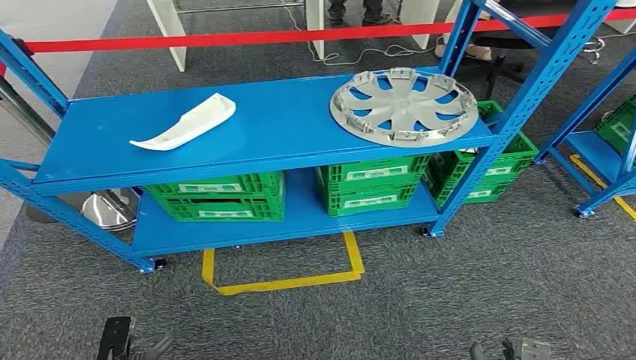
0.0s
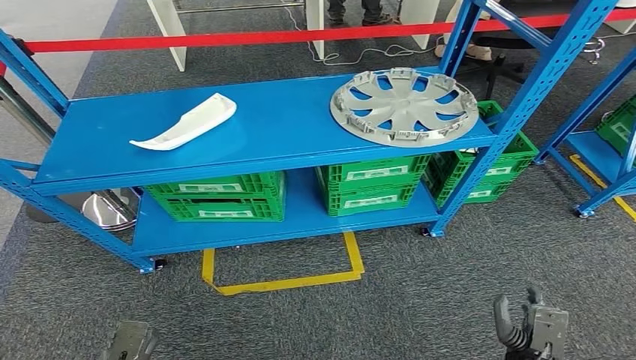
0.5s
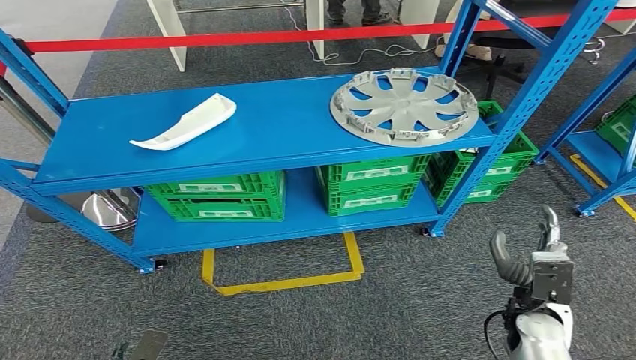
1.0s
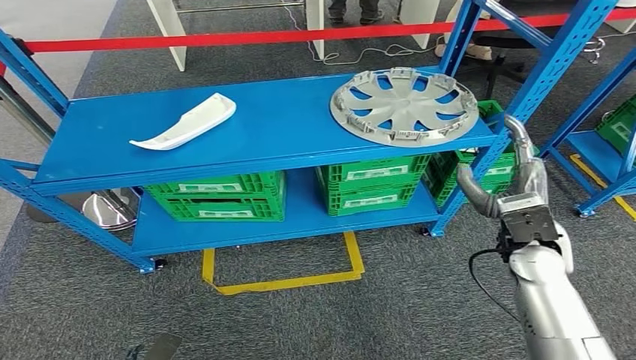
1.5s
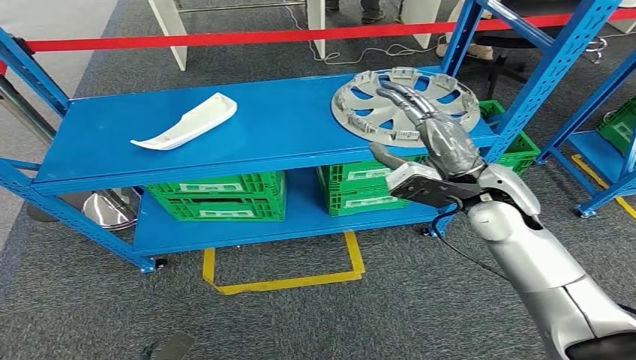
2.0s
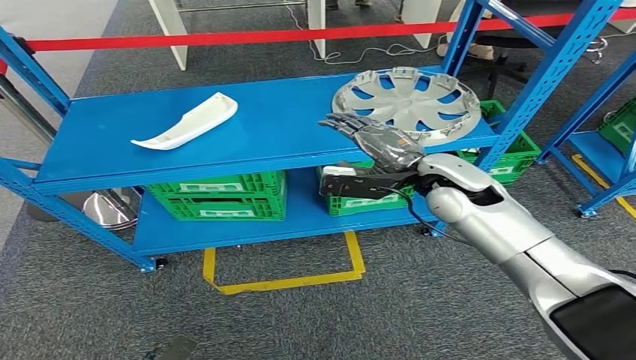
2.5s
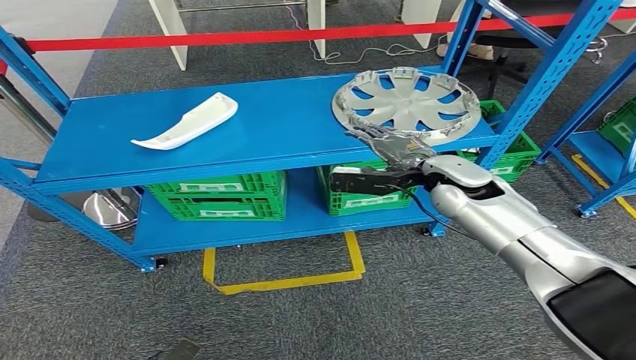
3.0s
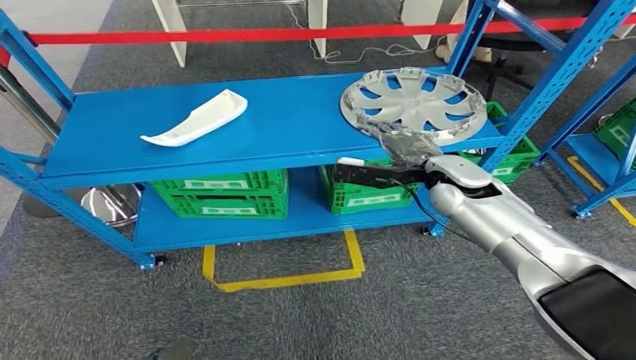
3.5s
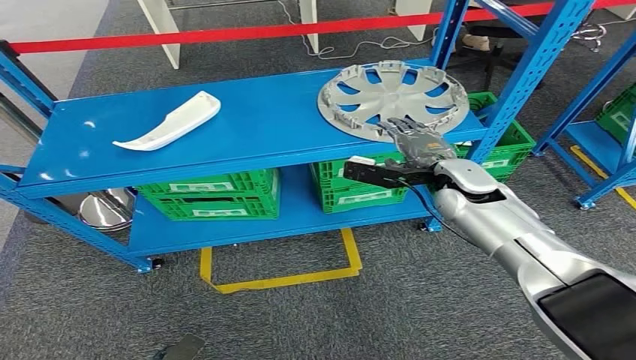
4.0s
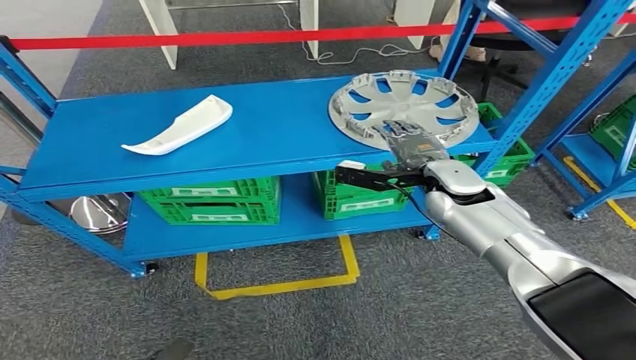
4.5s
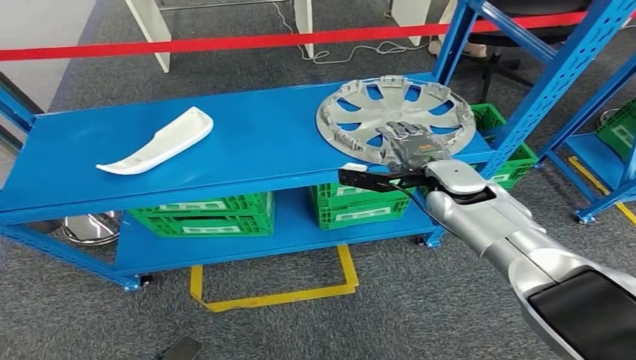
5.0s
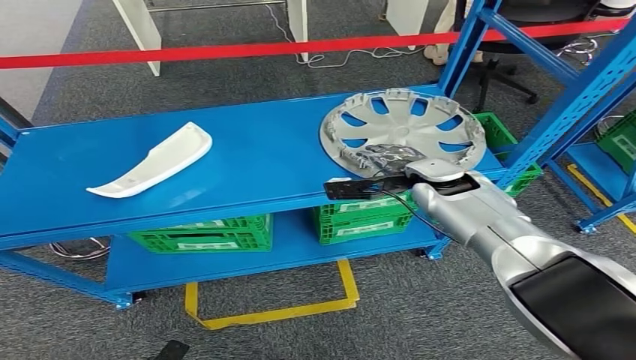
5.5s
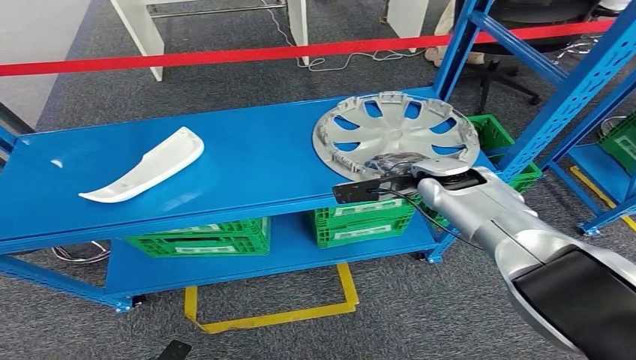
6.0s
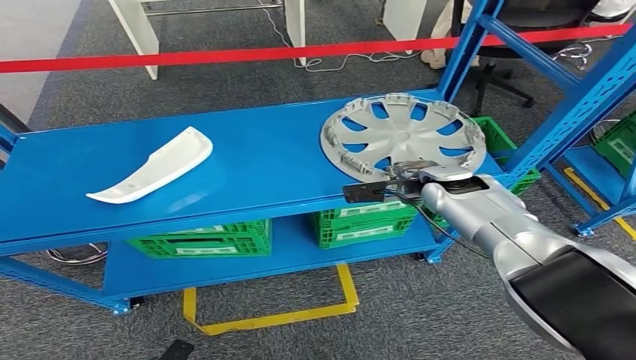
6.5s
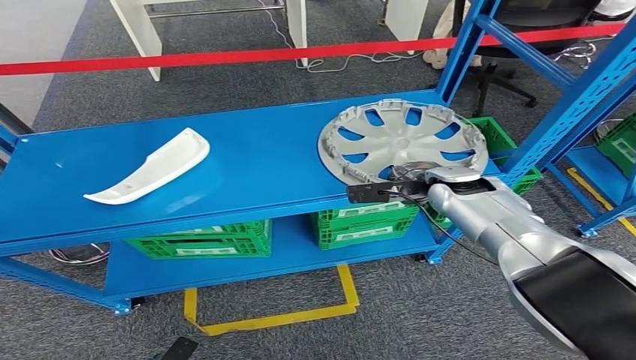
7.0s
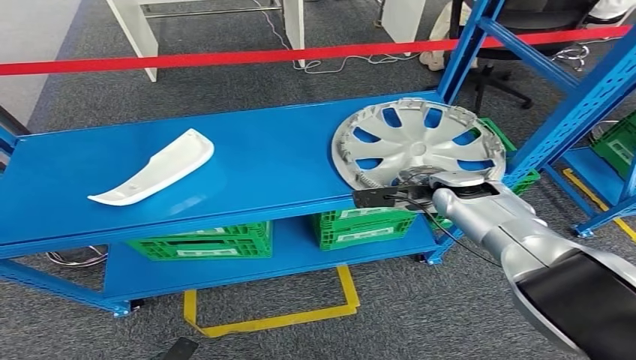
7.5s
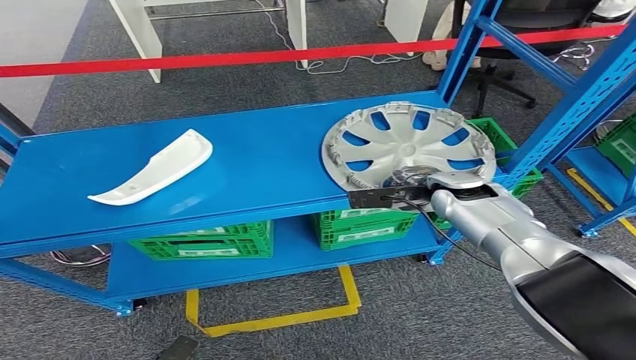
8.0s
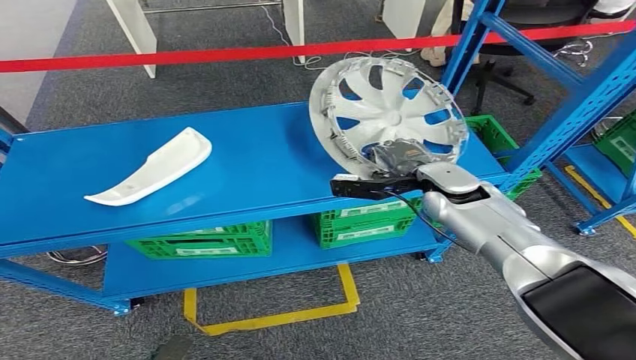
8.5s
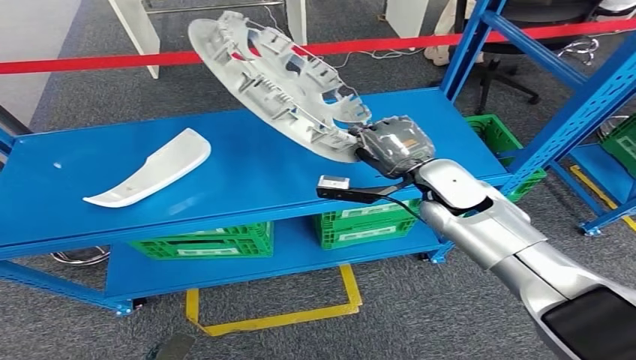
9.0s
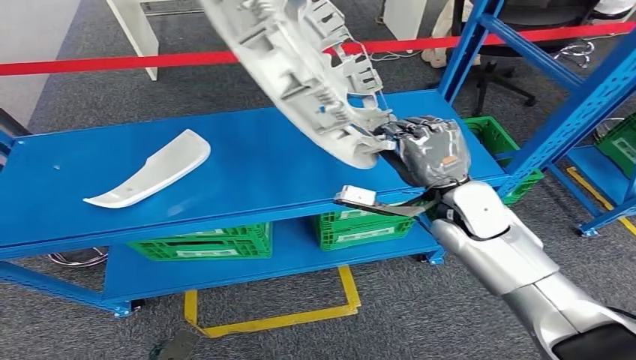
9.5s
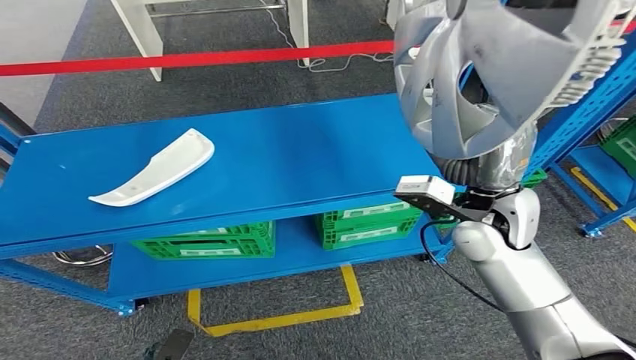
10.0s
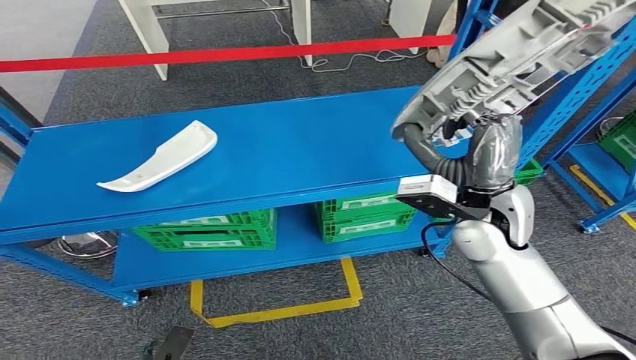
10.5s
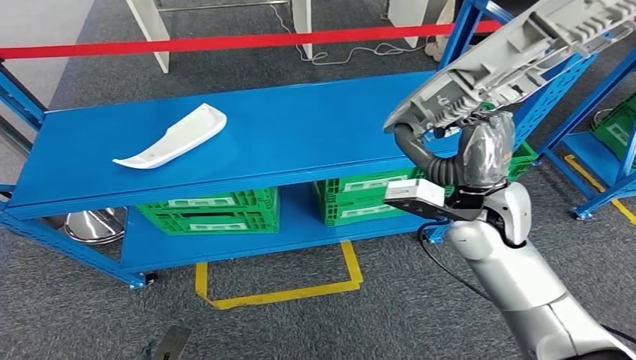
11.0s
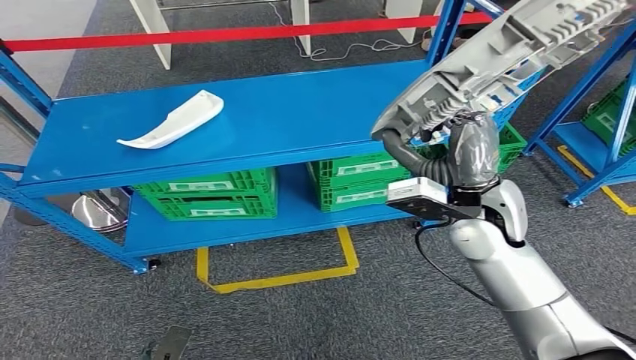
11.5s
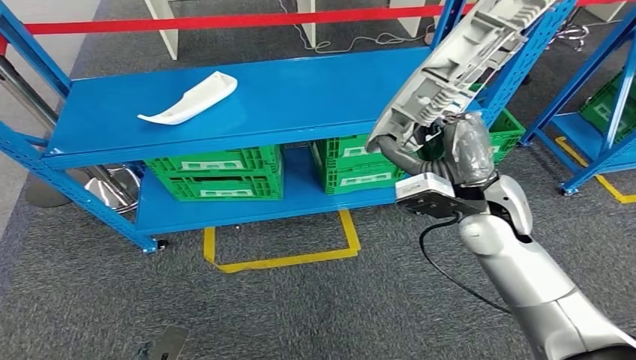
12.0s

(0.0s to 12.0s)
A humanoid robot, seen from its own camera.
Step, 0.0s - 9.5s: Pick up the small component from the shelf.
6.0s - 8.0s: The right hand moves roughly 5 cm.

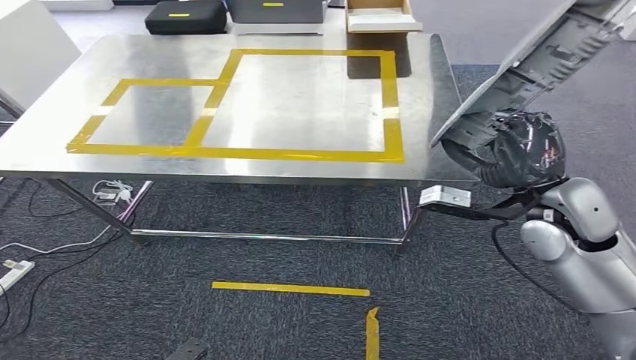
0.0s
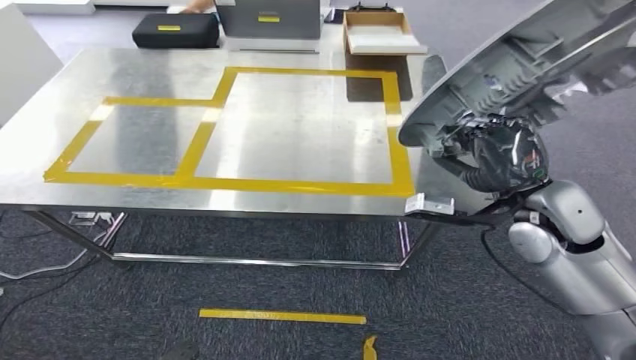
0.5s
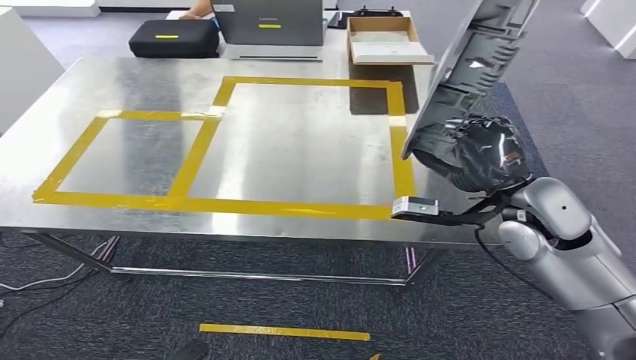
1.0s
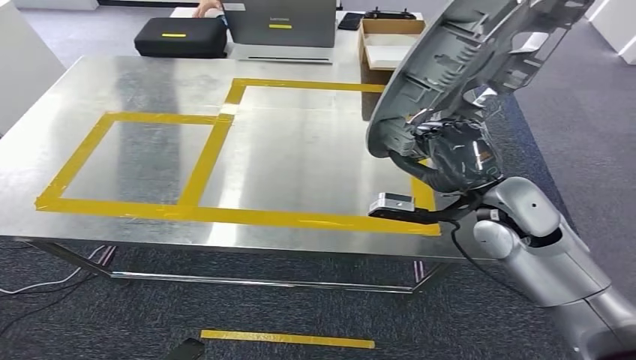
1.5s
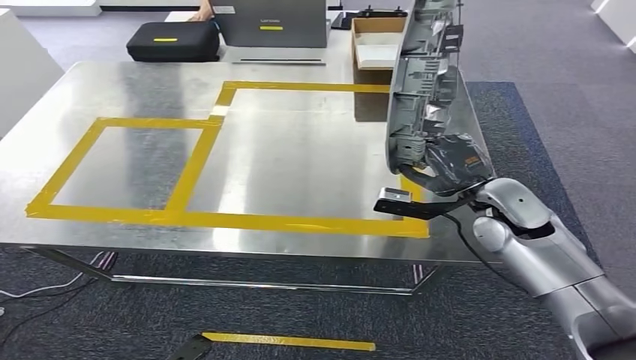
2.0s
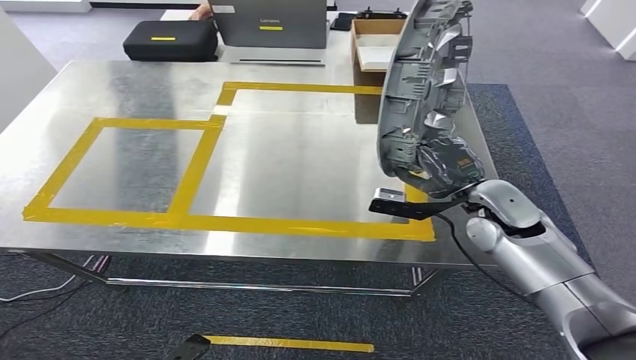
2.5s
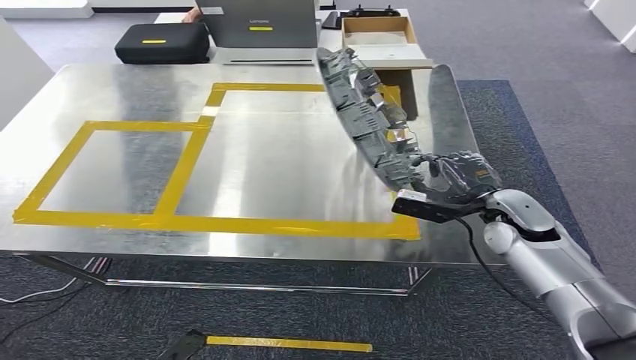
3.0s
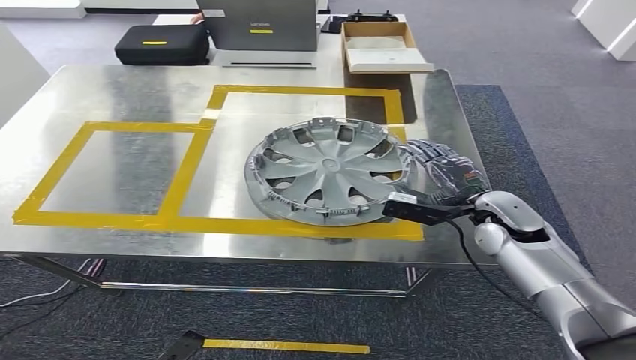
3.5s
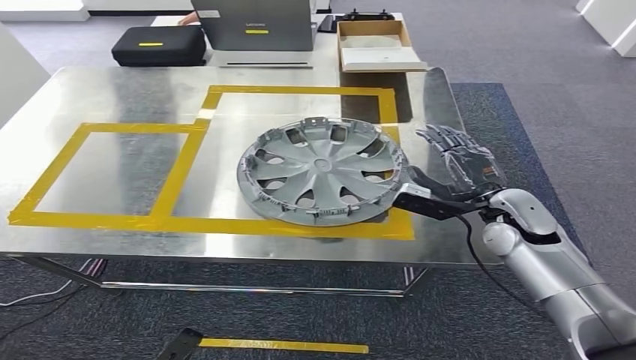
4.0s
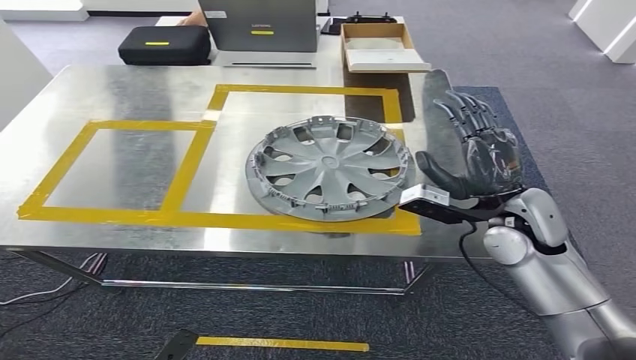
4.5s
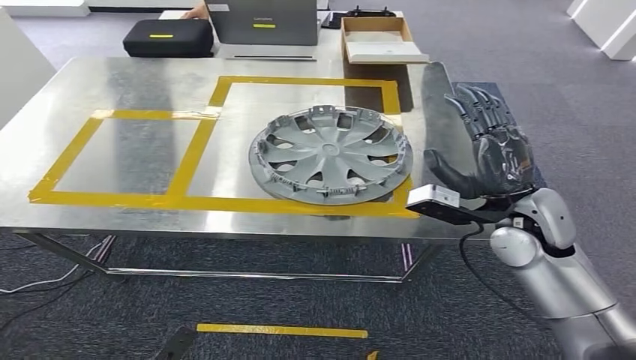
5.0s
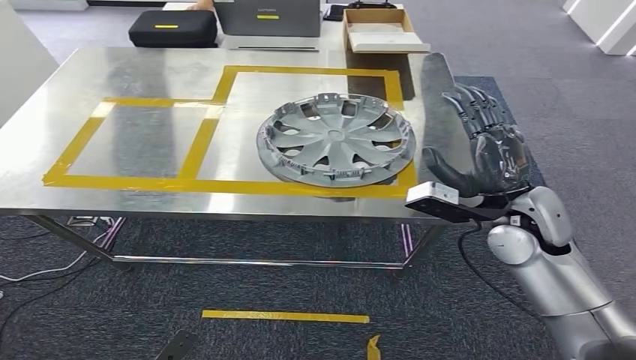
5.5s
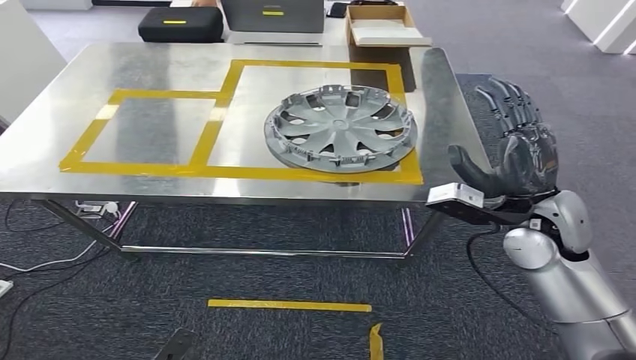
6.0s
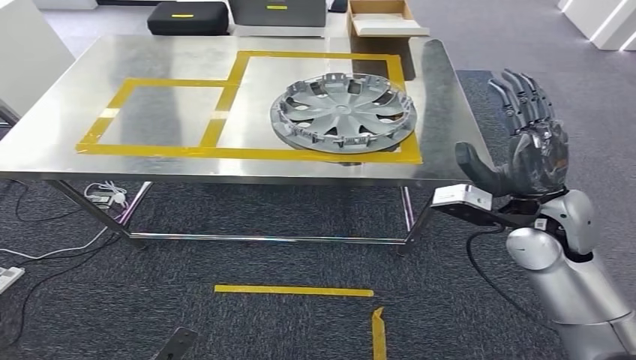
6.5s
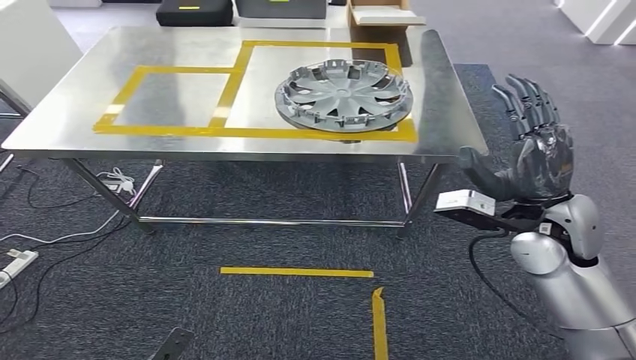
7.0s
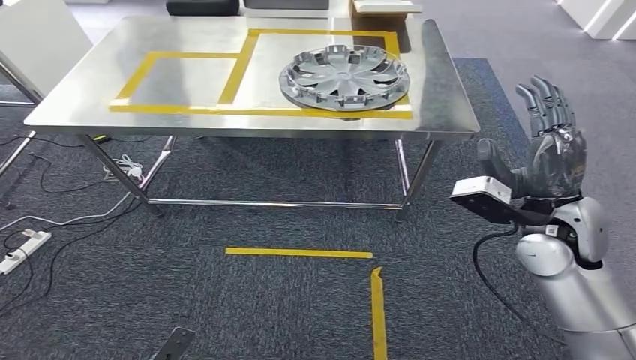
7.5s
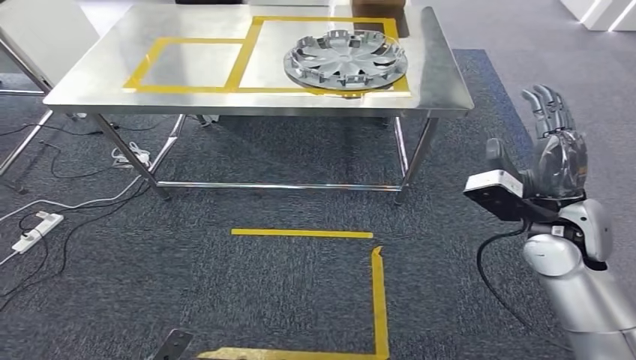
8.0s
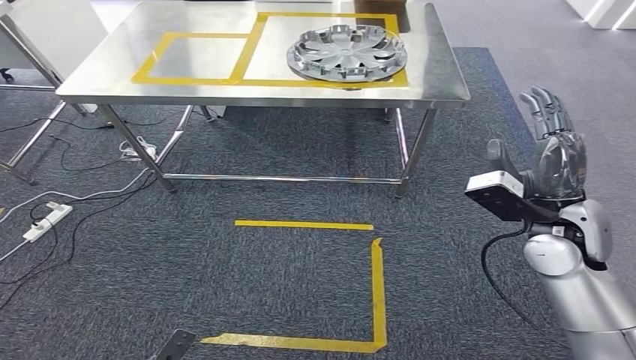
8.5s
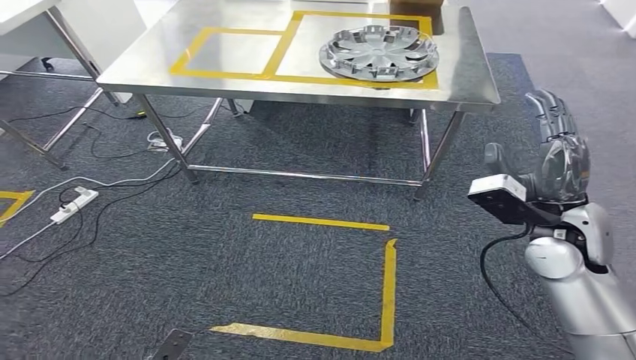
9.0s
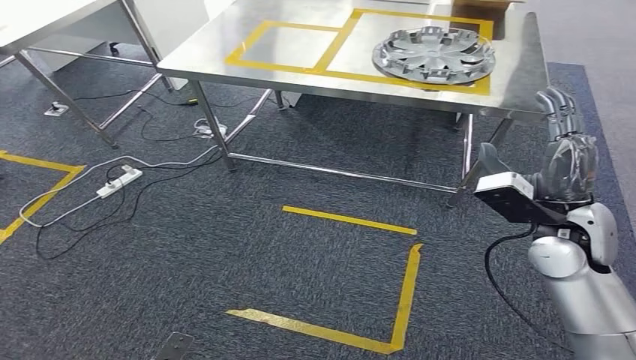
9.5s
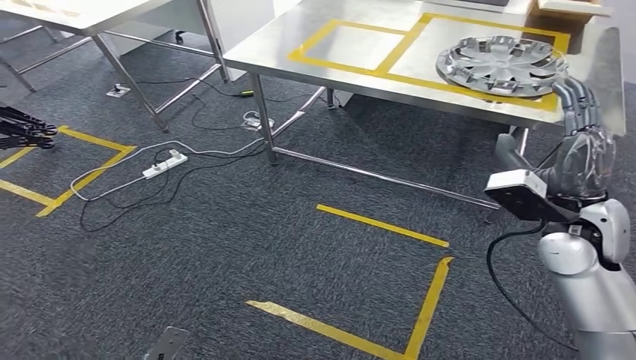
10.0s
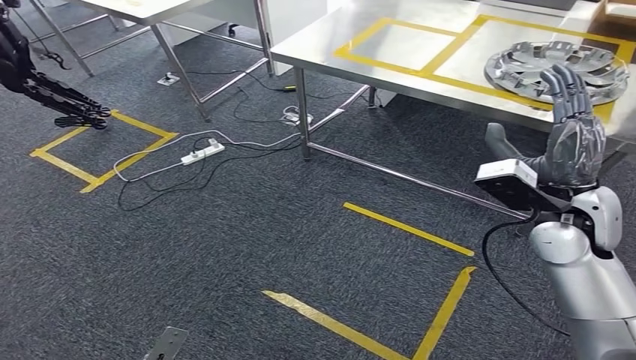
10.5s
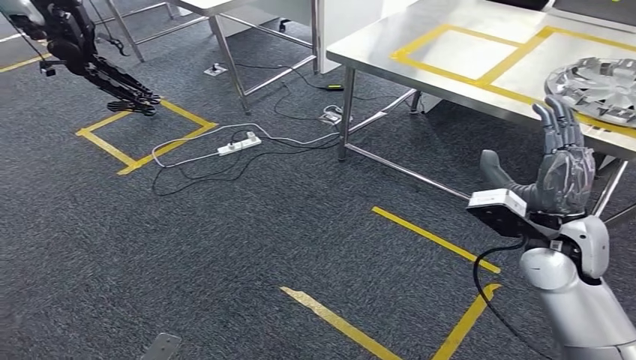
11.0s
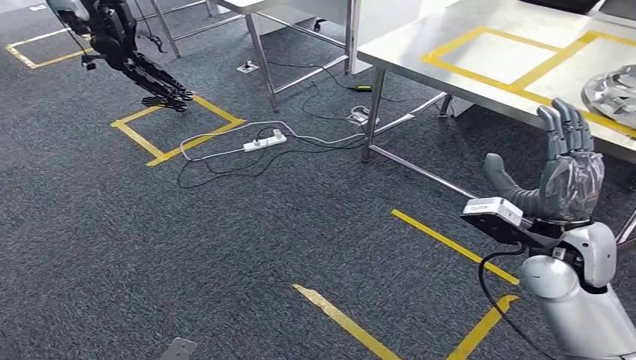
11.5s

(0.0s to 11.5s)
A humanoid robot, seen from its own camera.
Step, 0.0s - 5.5s: Insert the small component into the corresponding slot on the workbench.
